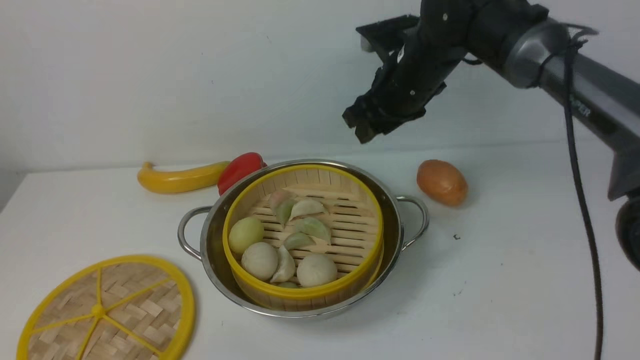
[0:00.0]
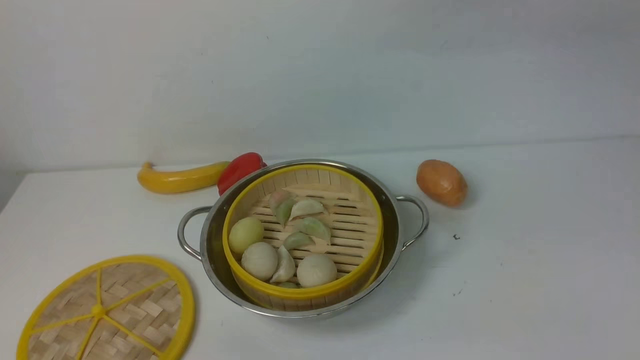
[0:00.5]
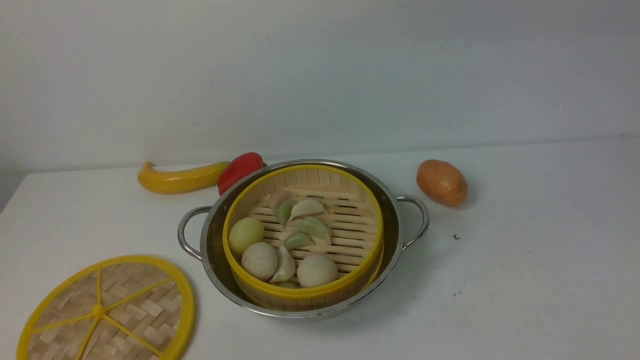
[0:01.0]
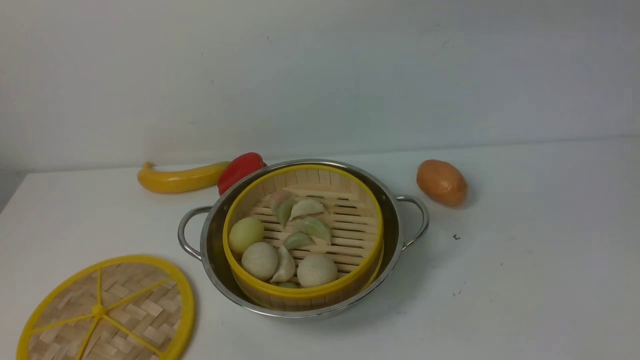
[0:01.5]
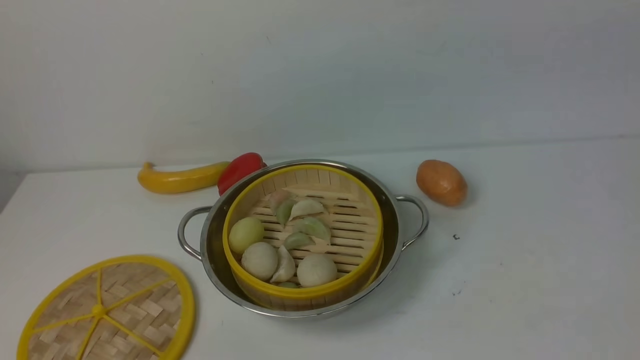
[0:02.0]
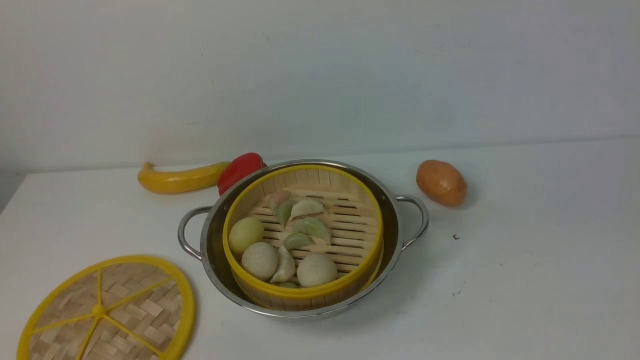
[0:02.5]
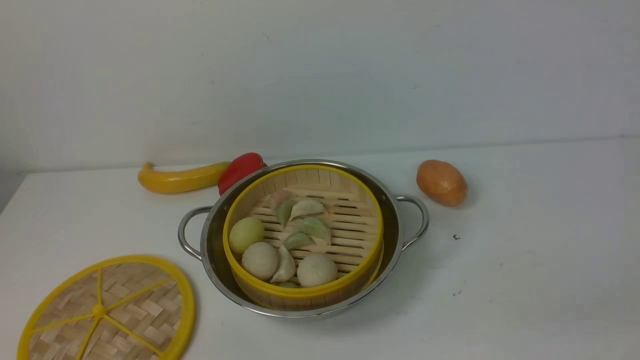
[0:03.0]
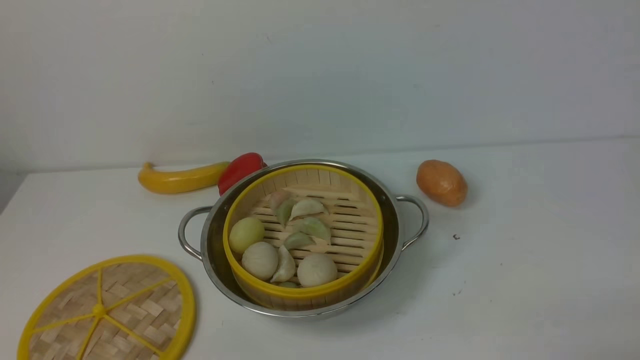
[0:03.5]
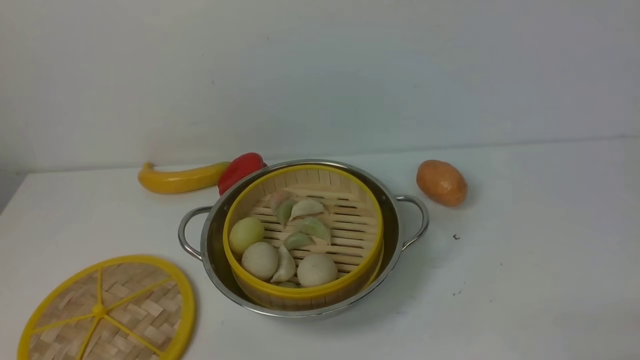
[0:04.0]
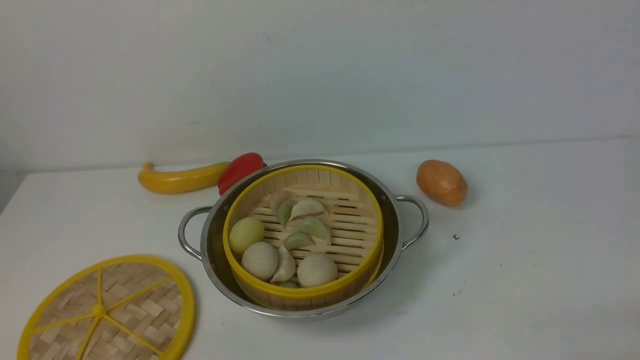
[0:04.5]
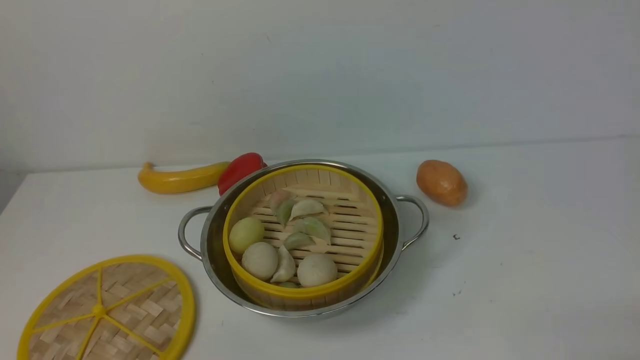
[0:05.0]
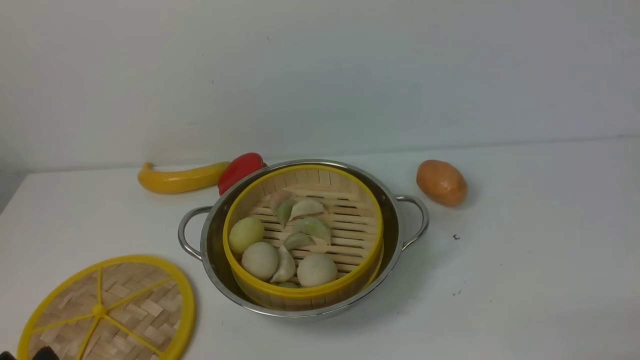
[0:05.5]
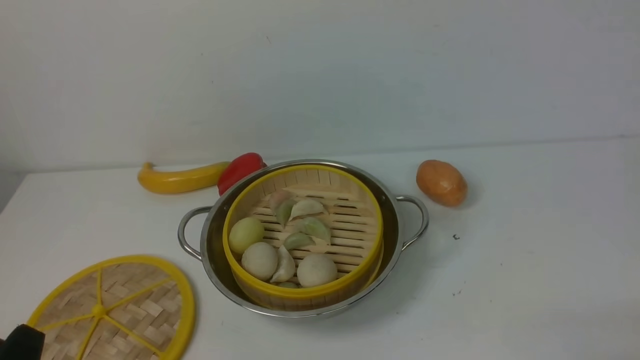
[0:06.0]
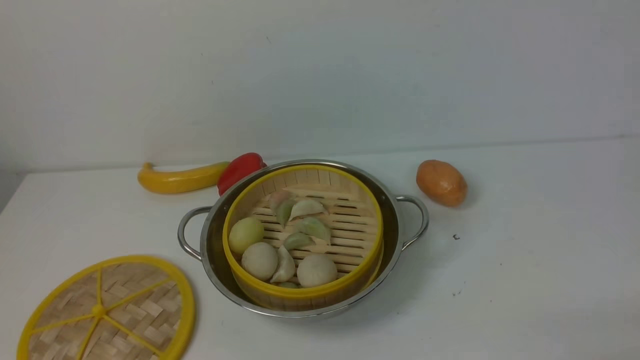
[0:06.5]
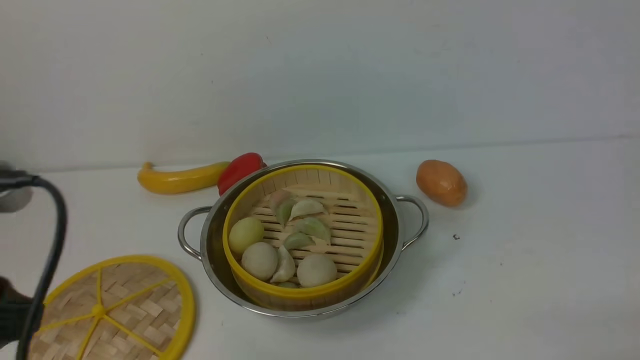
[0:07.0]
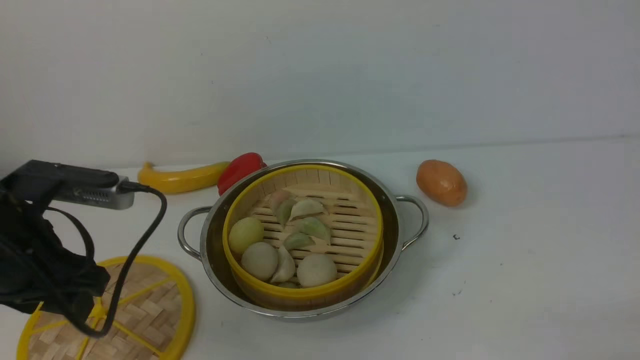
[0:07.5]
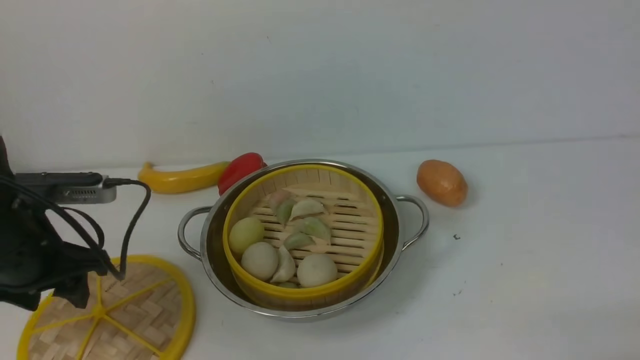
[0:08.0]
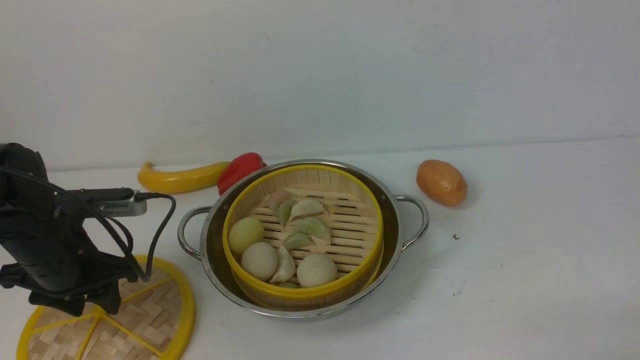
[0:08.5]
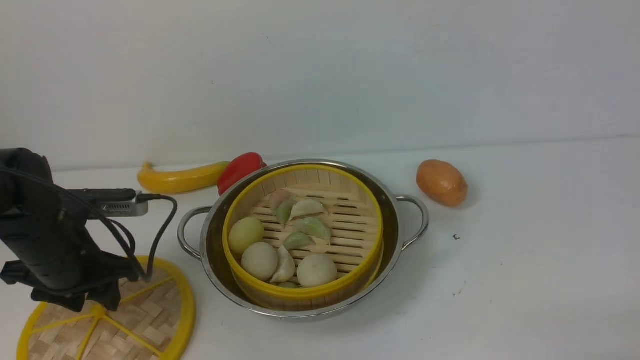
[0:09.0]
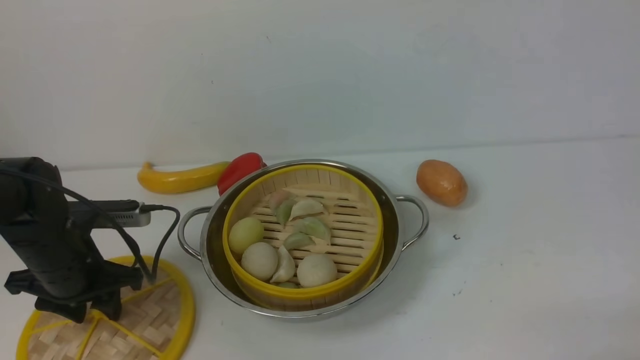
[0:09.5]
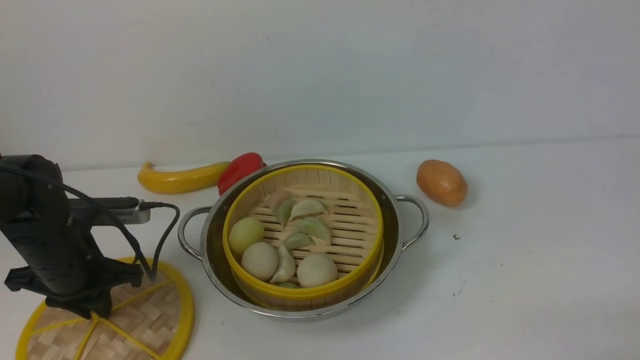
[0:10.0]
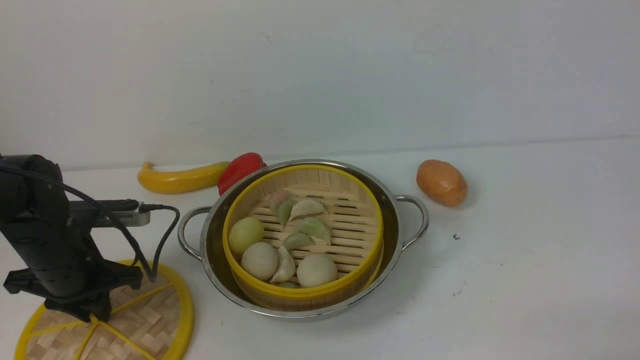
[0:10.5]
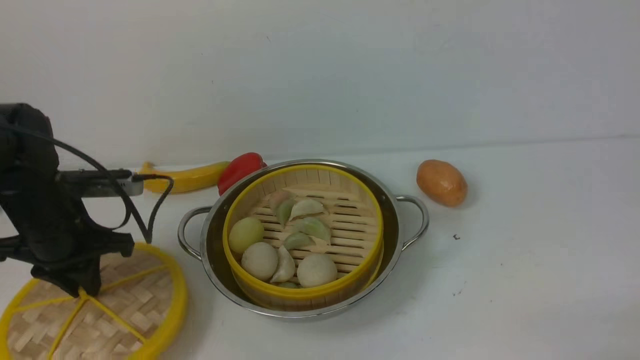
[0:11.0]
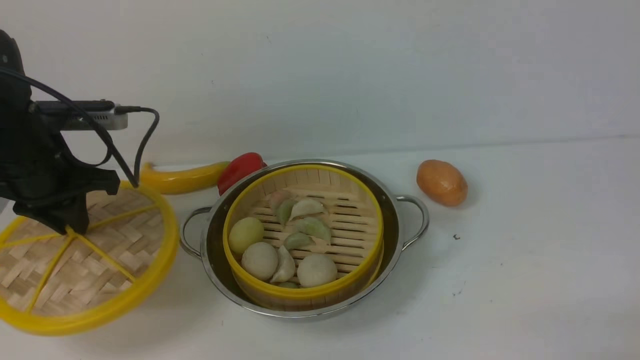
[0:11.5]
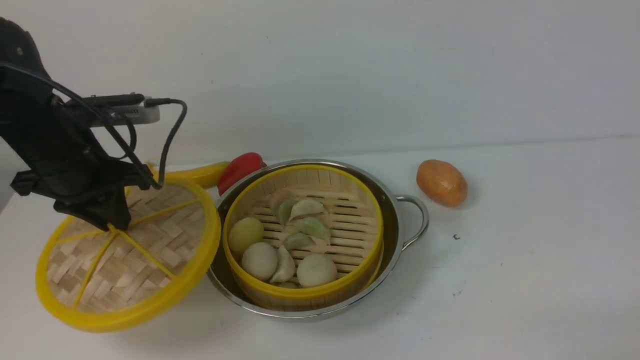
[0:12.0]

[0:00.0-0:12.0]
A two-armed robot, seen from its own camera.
Task of the whole recording: place the steamer in the pot on the white table, and put the lid on the steamer.
Step, 0:01.0 to 0:11.0: use the left arm to lift the lid of the steamer.
0:00.0 to 0:02.0: The right gripper heads backward, upward and to the right, covering about 30 cm, and closes up.
0:06.0 to 0:08.0: The left gripper travels forward by roughly 25 cm.
0:08.0 to 0:10.0: The left gripper goes roughly 5 cm downward, and closes.
0:10.0 to 0:12.0: The left gripper heads upward, covering approximately 10 cm.

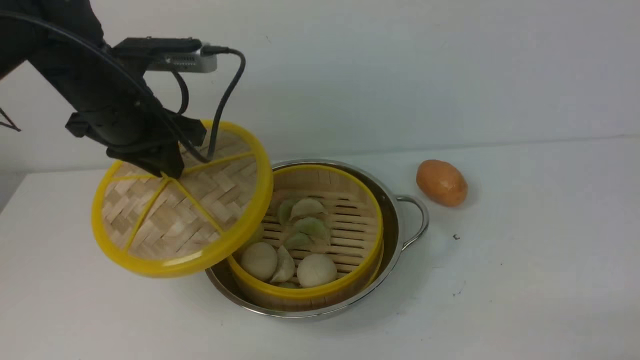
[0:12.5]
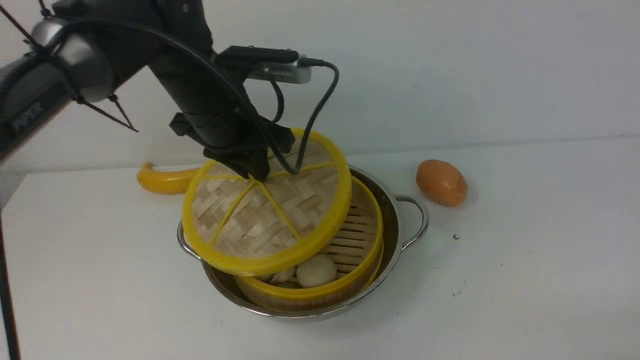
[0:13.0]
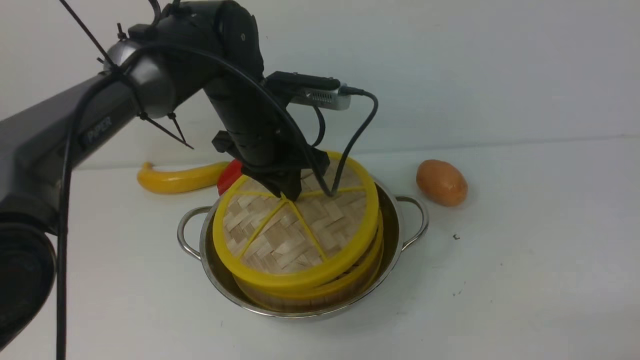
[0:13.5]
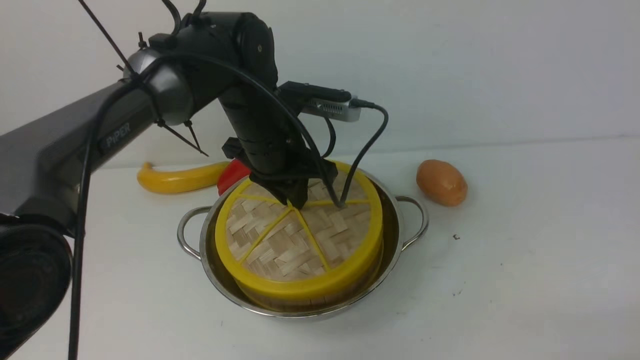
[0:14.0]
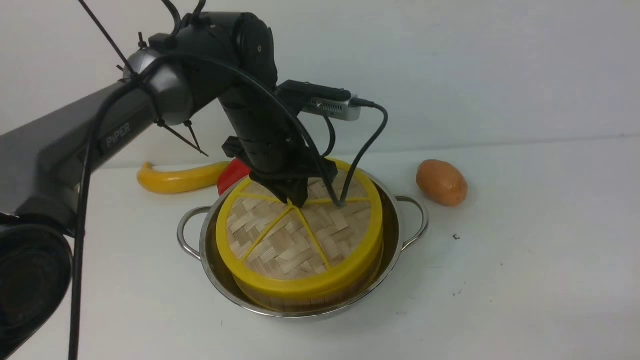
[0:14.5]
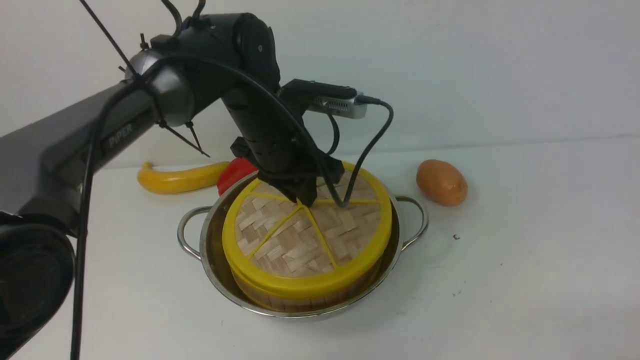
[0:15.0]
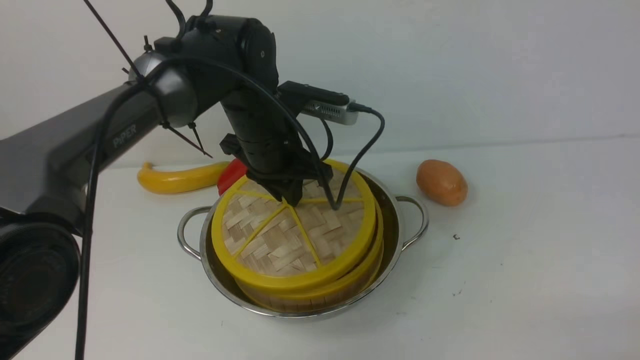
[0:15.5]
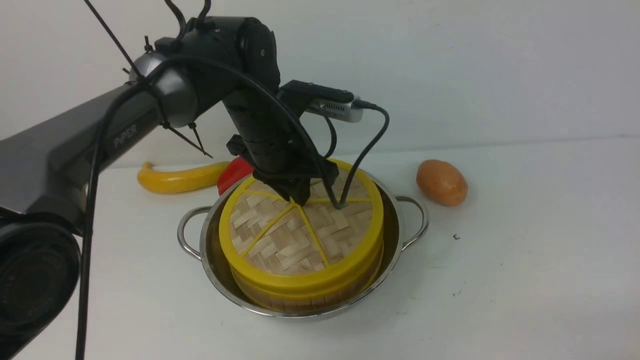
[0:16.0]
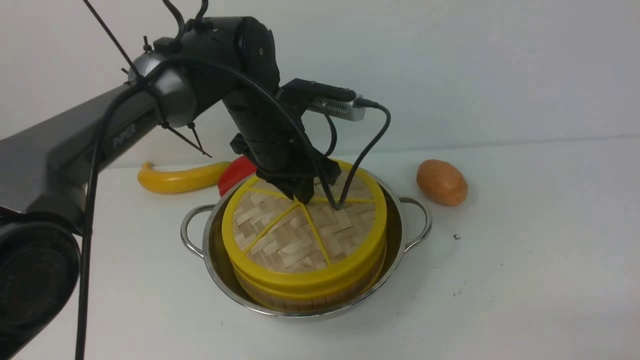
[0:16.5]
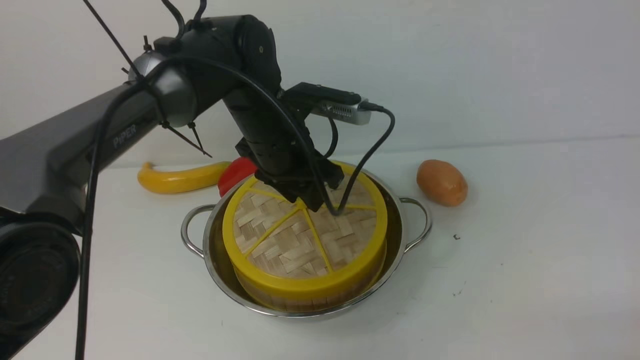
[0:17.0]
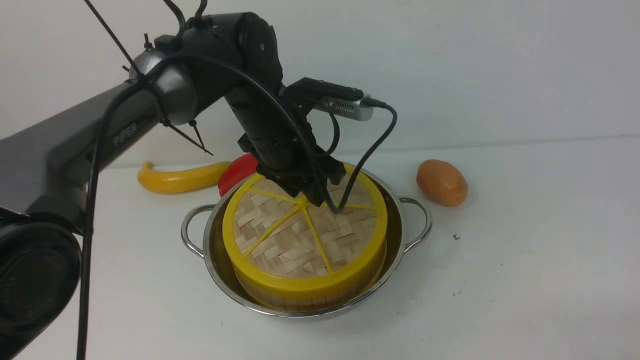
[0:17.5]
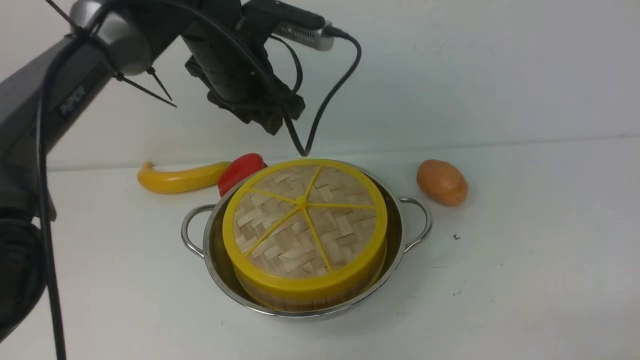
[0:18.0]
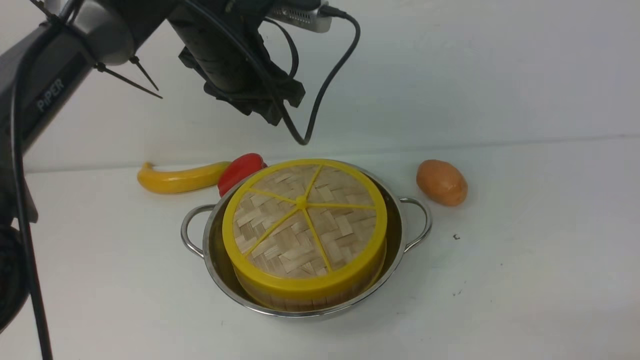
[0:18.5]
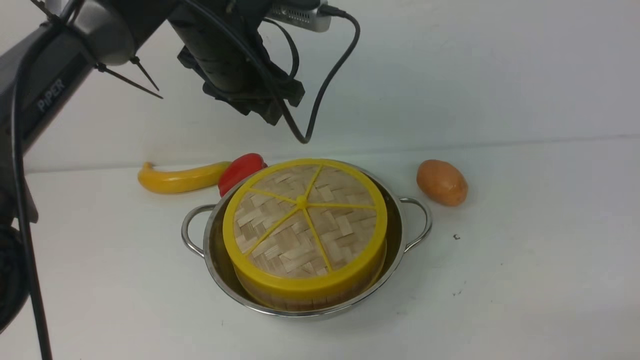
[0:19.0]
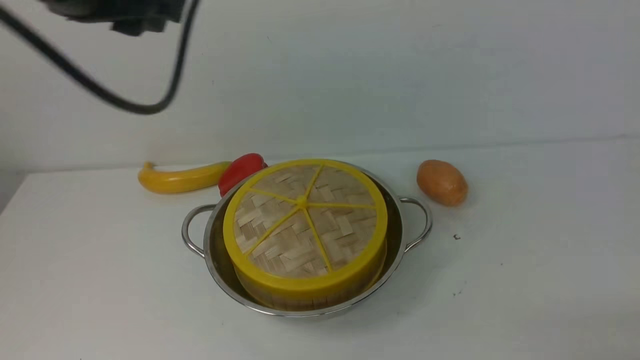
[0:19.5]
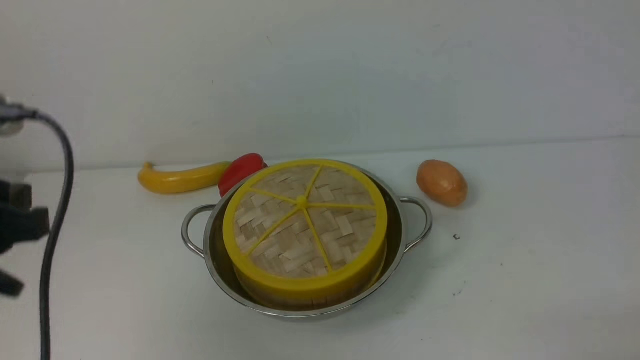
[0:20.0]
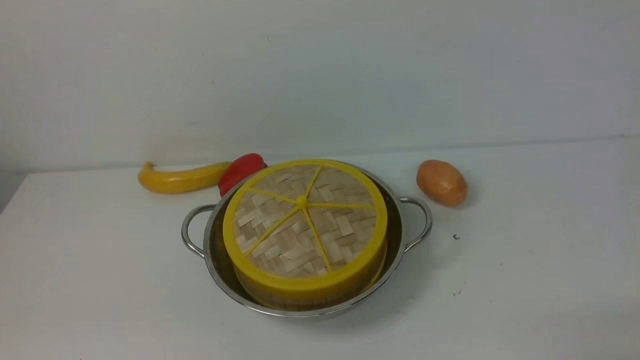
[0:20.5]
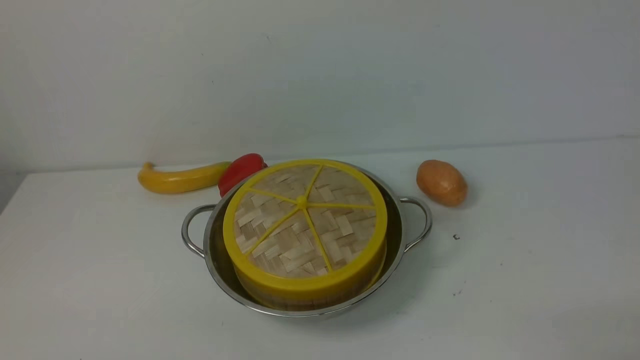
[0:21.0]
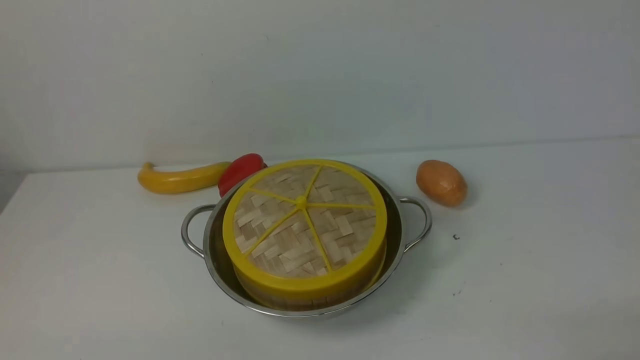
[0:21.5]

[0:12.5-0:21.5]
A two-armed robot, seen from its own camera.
Task of the whole recording: place the steamer in the pot on the white table, and put the lid on the steamer.
Step, 0:12.5 to 0:18.0: use the left arm to place the steamer lid on the steamer.
0:12.5 to 0:14.5: The left gripper travels to the right and downward by about 15 cm.
0:14.5 to 0:17.0: The left gripper opens.
0:17.0 to 0:19.5: The left gripper travels upward, to the left and backward by roughly 25 cm.
0:19.5 to 0:21.5: The left gripper moves downward and backward, approximately 35 cm.
